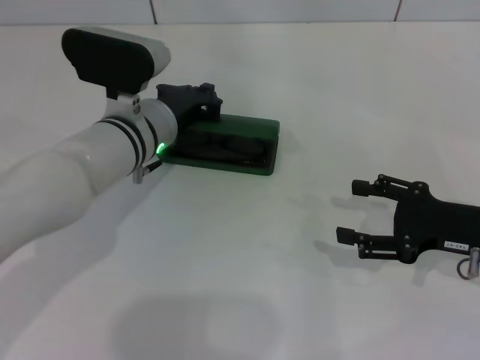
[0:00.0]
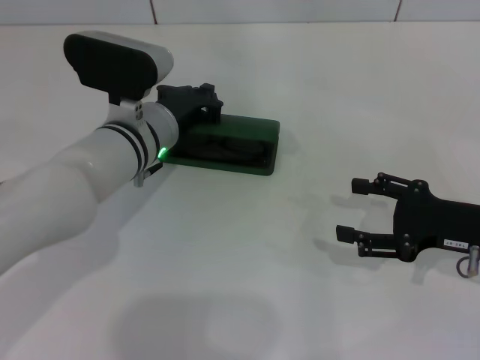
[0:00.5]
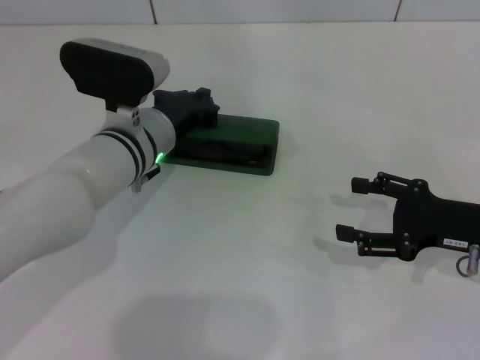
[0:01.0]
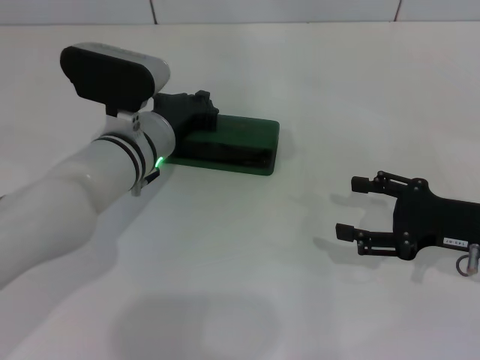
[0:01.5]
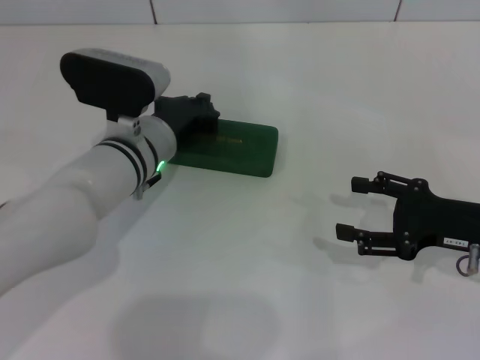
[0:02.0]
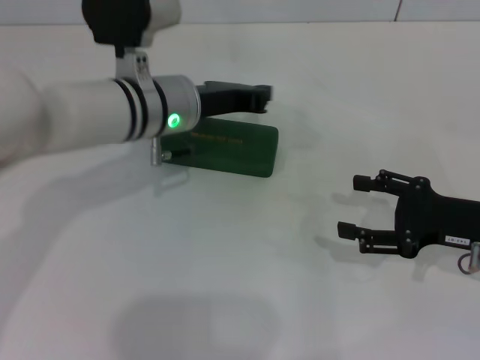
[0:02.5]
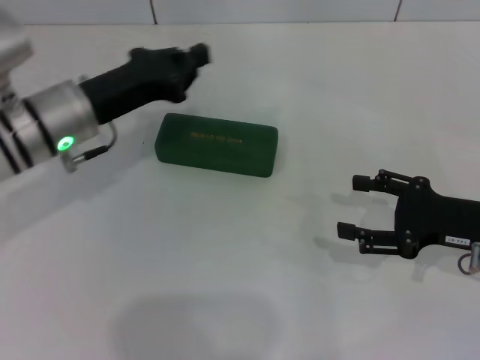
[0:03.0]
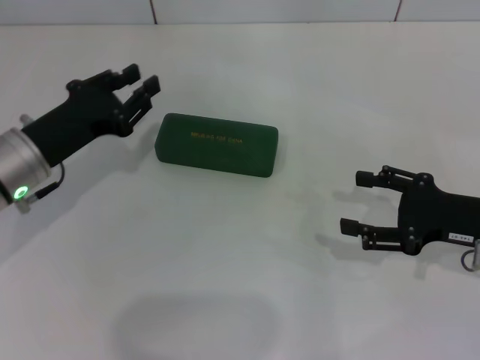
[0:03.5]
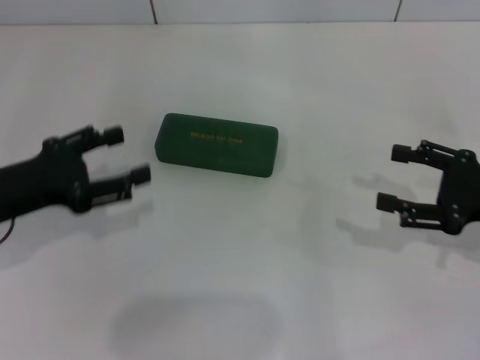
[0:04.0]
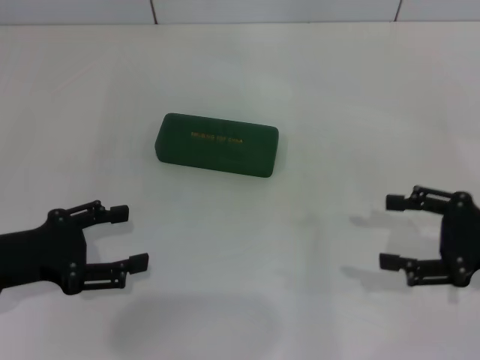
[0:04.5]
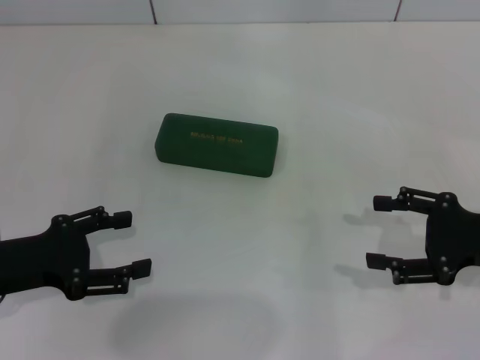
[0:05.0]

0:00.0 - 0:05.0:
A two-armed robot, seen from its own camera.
Step, 0:00.0 - 0:02.0: Close the glasses case with your left hand.
0:00.0 - 0:02.5: The left gripper changes place by roughly 5 cm.
0:02.5 - 0:05.0: The left gripper is displaced to the left and backward by roughly 25 cm, and opens.

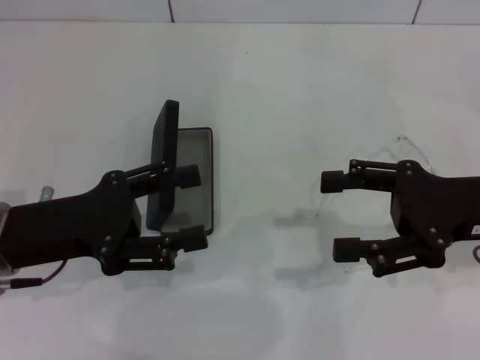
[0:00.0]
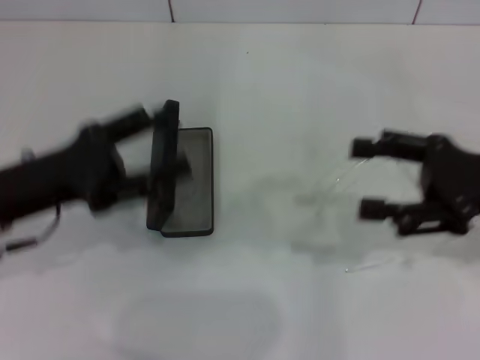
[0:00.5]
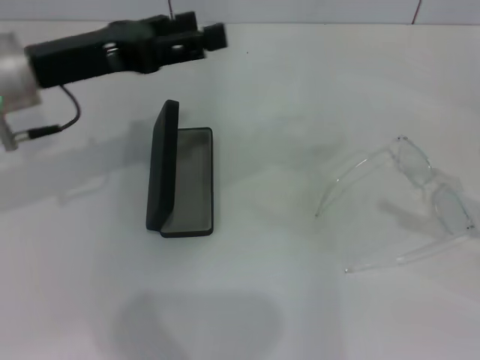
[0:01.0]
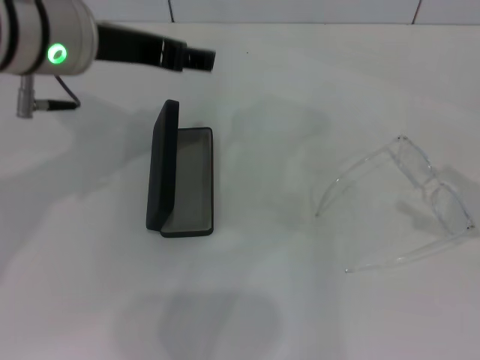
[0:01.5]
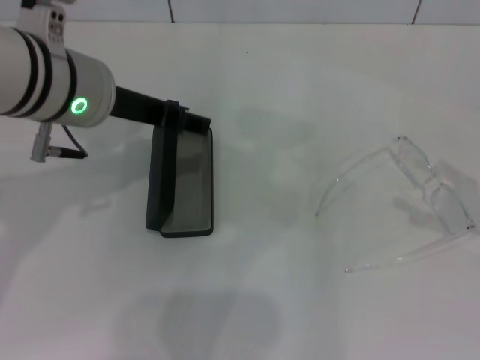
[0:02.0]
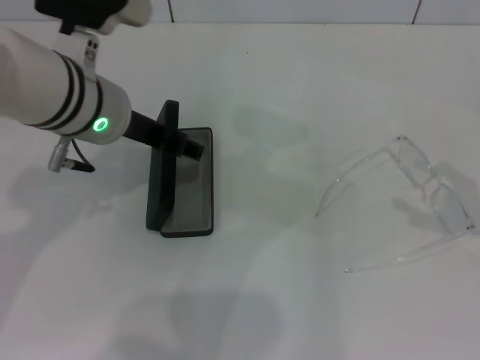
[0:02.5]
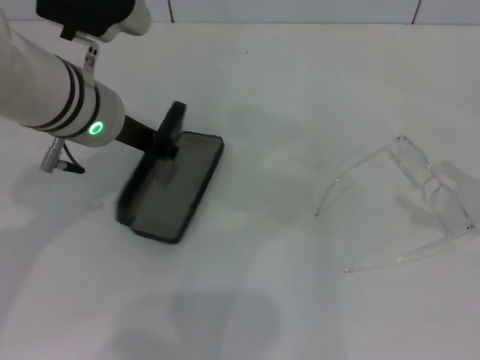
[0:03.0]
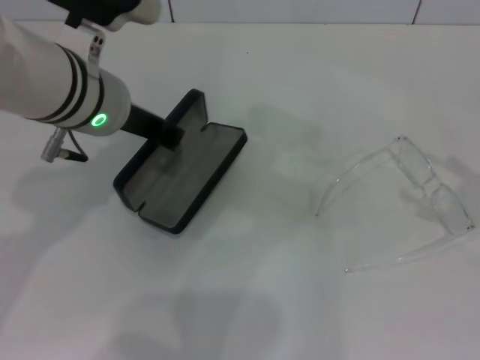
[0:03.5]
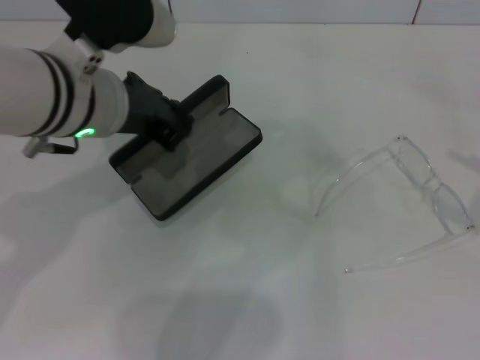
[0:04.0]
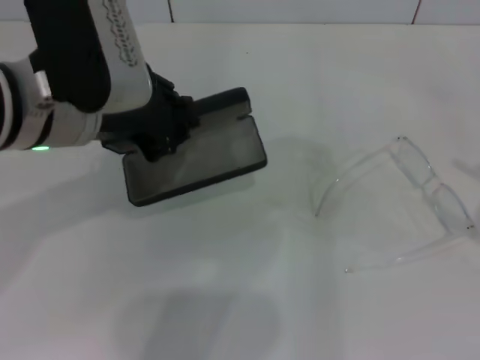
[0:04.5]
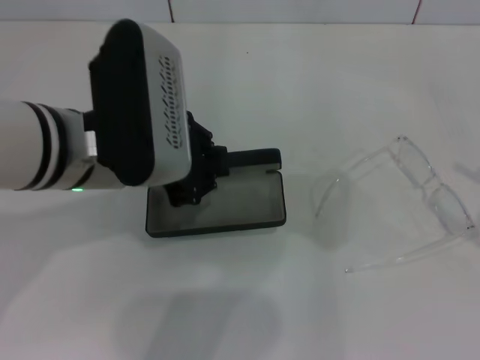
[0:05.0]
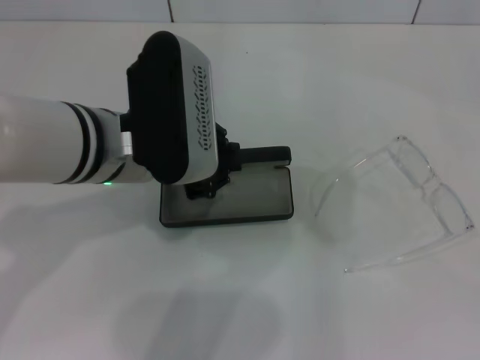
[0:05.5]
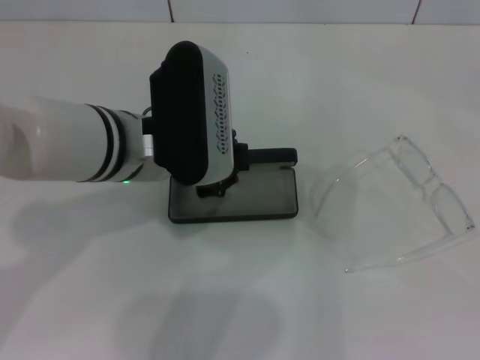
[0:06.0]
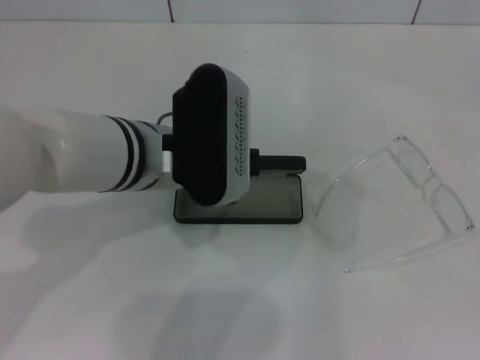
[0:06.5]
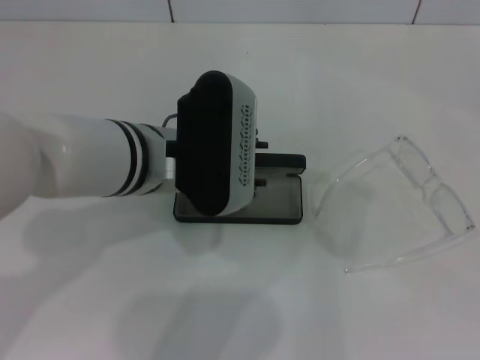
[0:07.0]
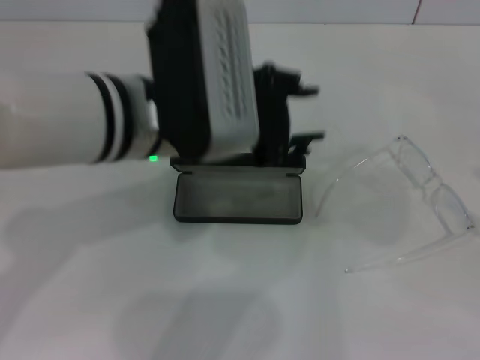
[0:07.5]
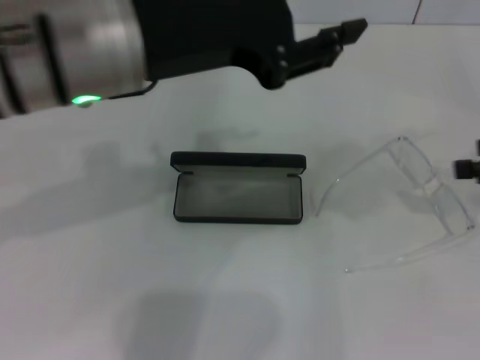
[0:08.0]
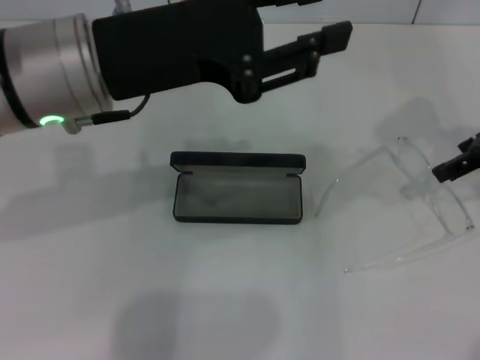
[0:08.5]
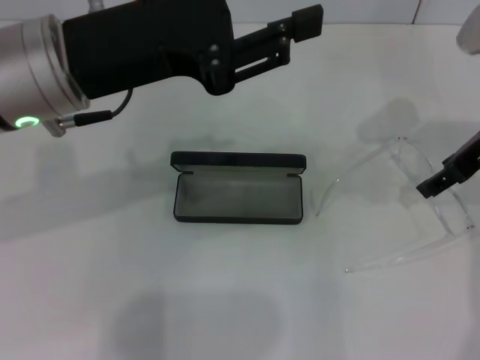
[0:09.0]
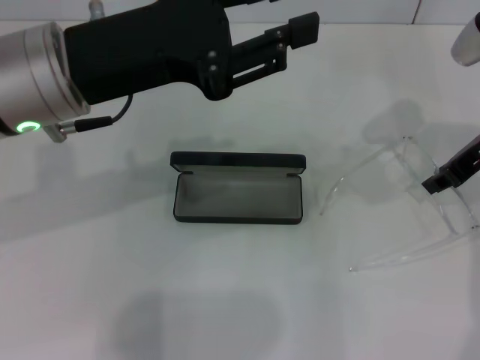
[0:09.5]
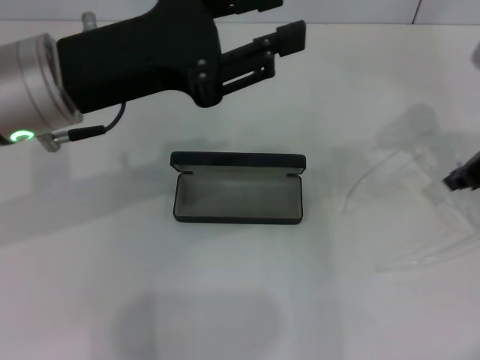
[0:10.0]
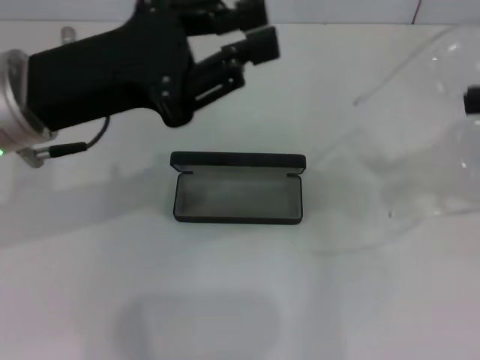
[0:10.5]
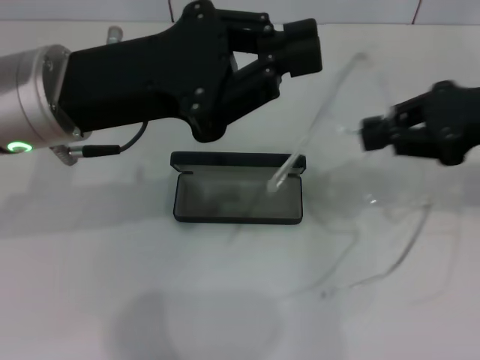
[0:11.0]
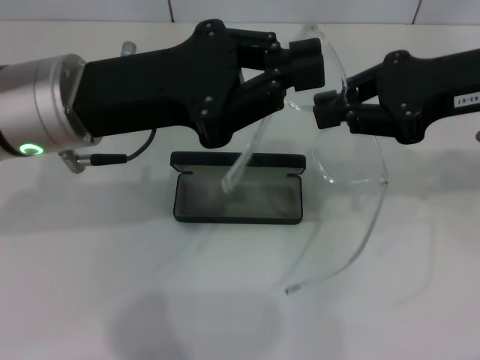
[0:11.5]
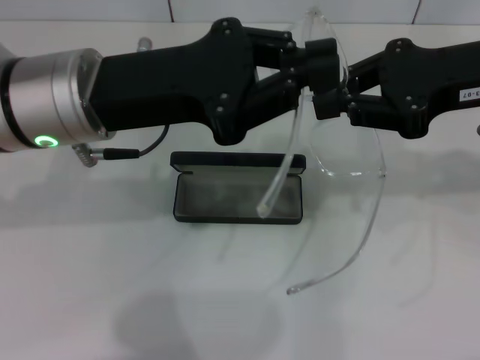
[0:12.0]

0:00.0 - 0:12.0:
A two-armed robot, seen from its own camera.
Step, 0:00.0 - 0:03.0: Grab the glasses case with your left hand.
Step, 0:03.5 - 0:06.5: Place the glasses case in the center of the table with your left hand.
Step, 0:07.0 - 0:09.5: Grab the eyeglass frame with your right hand.
0:00.0 - 0:02.0: The right gripper is displaced to the right by some 15 cm; the left gripper heads upward, to the right and forward, covering approximately 15 cm.
0:02.0 - 0:04.0: The left gripper closes its fingers.
0:04.0 - 0:06.0: The right gripper is displaced backward by some 10 cm, while the left gripper changes place by about 5 cm.
0:06.0 - 0:08.0: The left gripper goes approximately 10 cm upward, while the right gripper moves forward and to the left, some 20 cm.
0:08.0 - 0:10.0: The right gripper heads to the left and forward, covering about 10 cm, and closes. The left gripper changes place by roughly 5 cm.
0:10.0 - 0:12.0: The right gripper goes about 10 cm upward, while the left gripper closes its fingers.

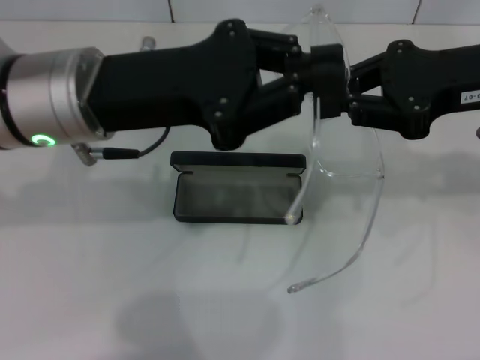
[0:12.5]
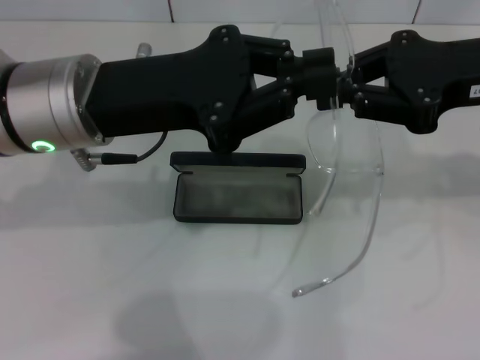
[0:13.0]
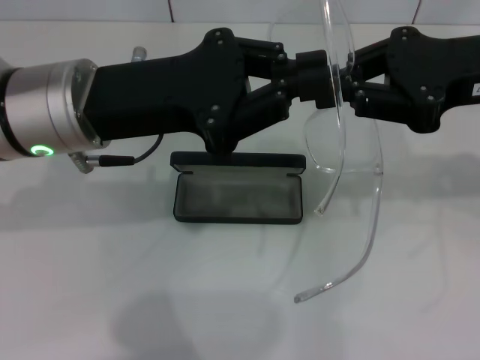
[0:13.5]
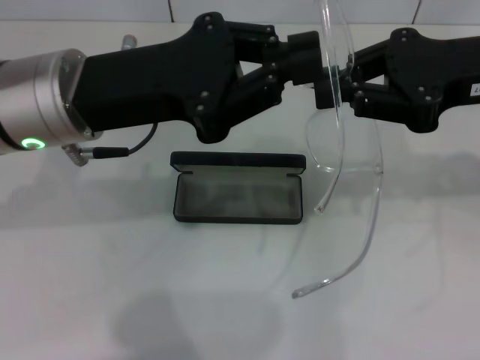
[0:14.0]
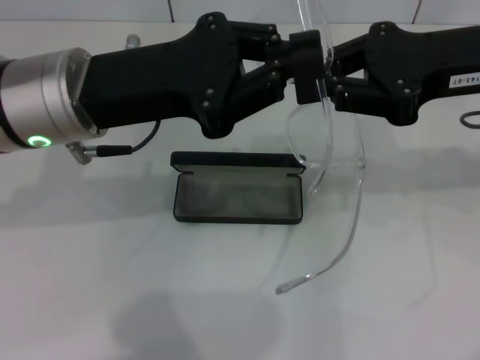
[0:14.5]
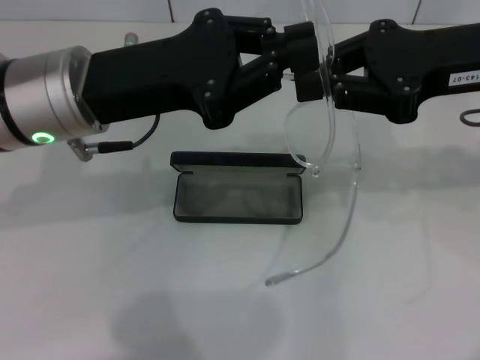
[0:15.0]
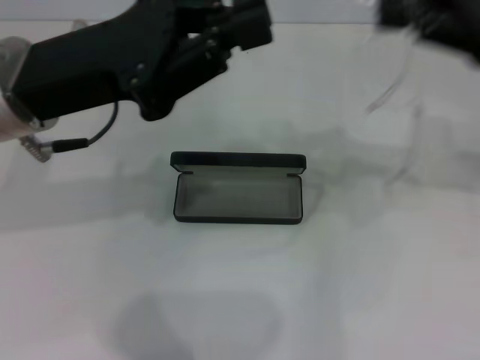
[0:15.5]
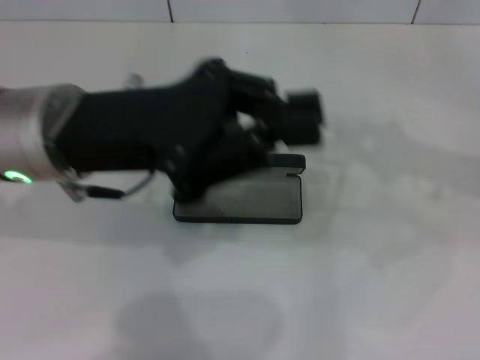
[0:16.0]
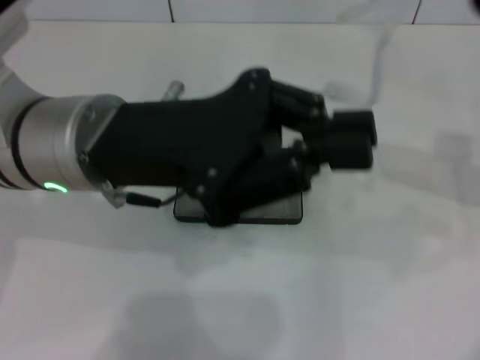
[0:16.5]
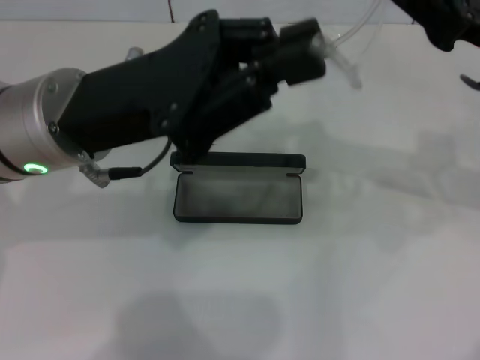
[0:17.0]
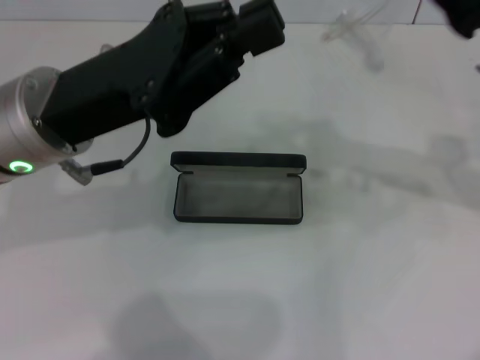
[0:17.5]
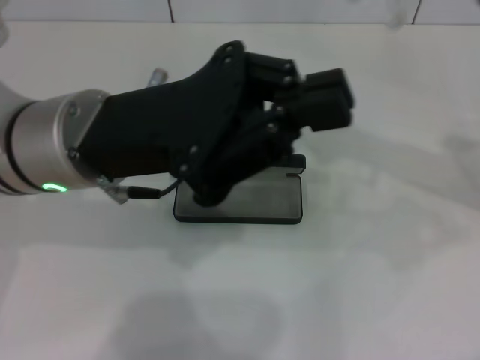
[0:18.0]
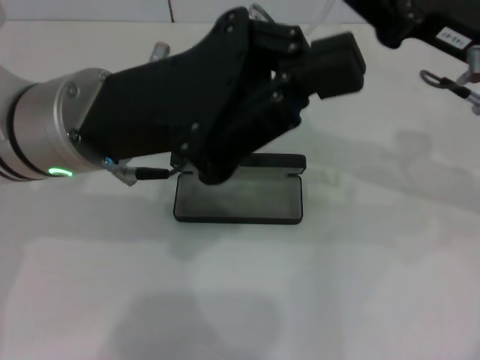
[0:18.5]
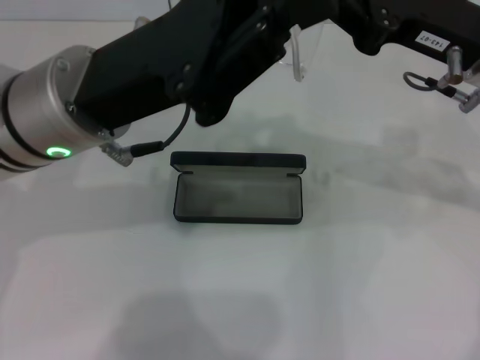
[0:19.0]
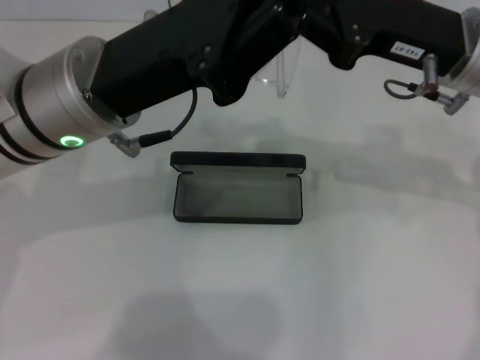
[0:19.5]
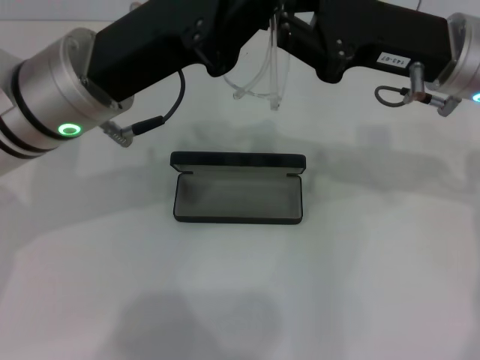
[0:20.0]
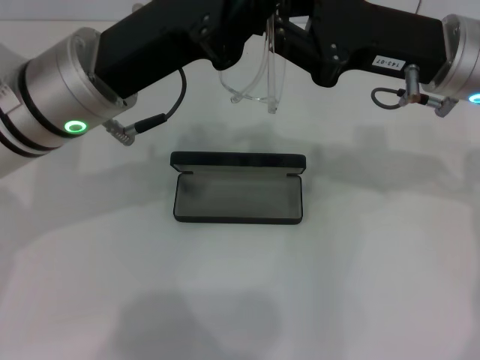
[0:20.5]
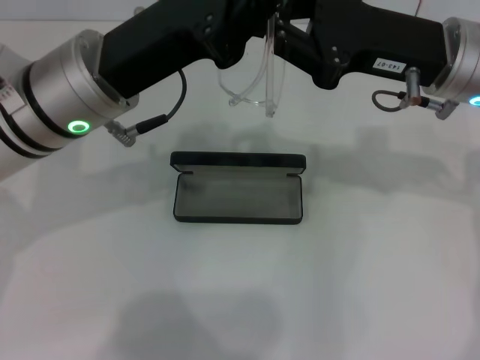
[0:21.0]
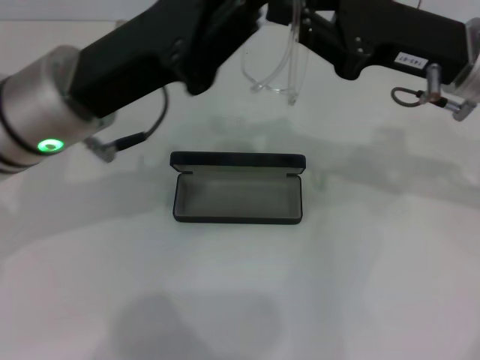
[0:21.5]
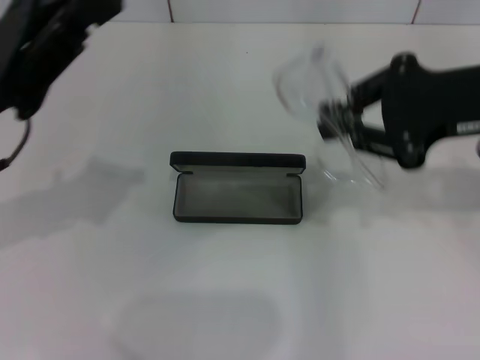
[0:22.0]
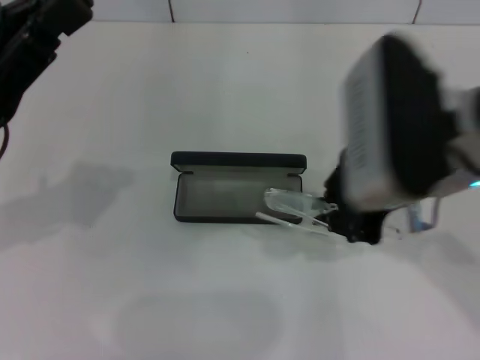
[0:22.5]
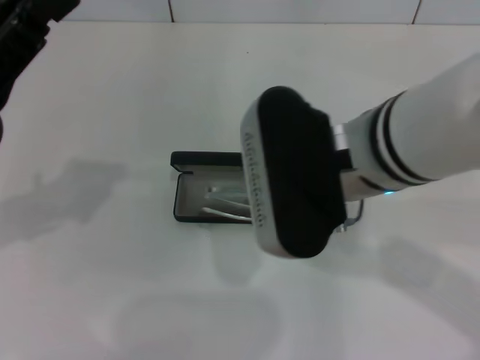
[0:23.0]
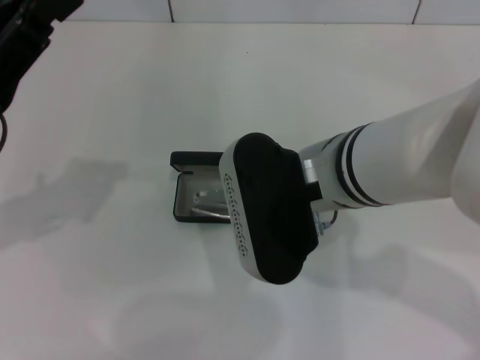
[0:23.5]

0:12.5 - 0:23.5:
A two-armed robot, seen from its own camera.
Step, 0:12.5 - 0:21.0: Lift the glasses with your right hand.
0:12.5 - 0:14.5: There are only small adjustments of the grippers.
0:14.5 - 0:16.0: The right gripper travels to the right by roughly 10 cm.
0:16.0 - 0:18.0: The right gripper moves to the left, some 5 cm.
0:18.0 - 0:20.0: The right gripper moves to the left, some 5 cm.
0:20.0 - 0:21.5: The grippers make only small movements.
0:21.5 - 0:23.5: The right gripper goes approximately 15 cm to the left and backward, while the left gripper travels to the left by about 10 cm.
